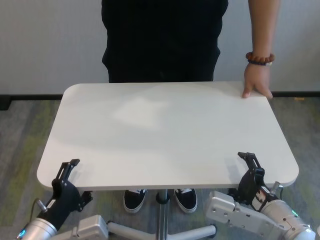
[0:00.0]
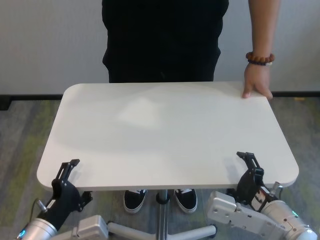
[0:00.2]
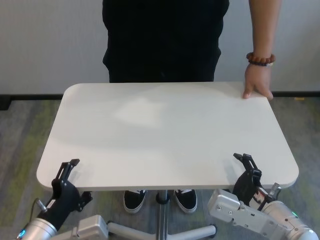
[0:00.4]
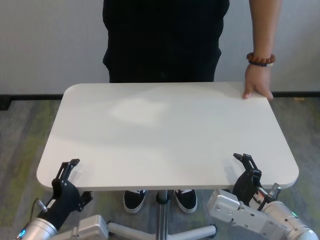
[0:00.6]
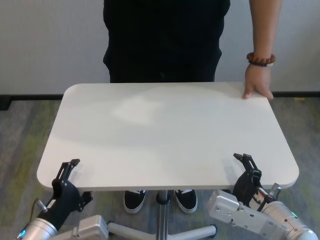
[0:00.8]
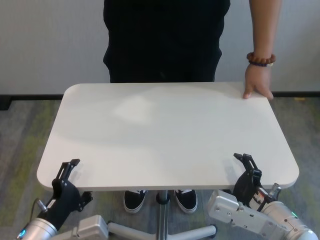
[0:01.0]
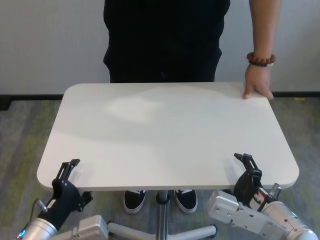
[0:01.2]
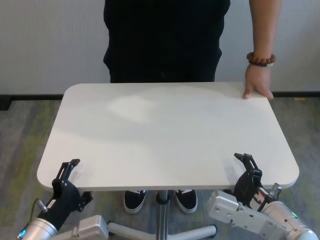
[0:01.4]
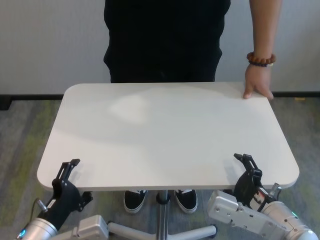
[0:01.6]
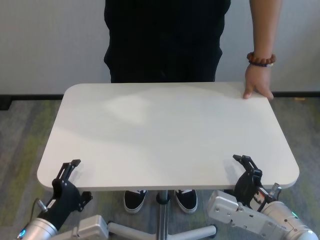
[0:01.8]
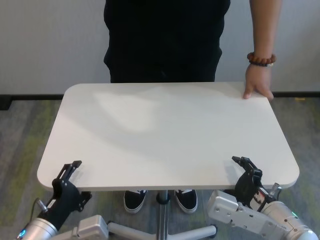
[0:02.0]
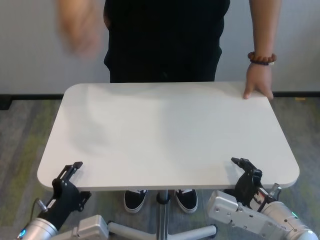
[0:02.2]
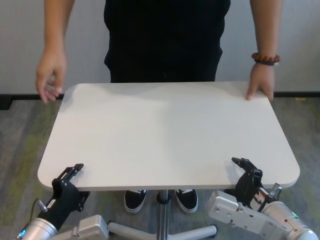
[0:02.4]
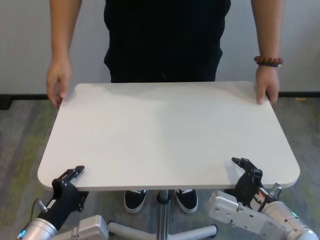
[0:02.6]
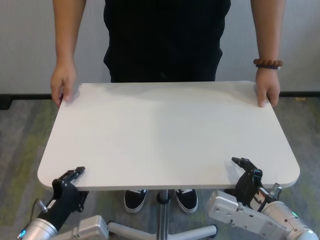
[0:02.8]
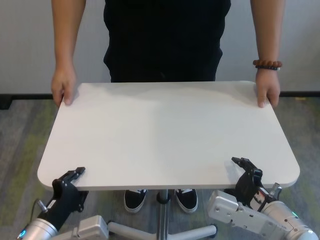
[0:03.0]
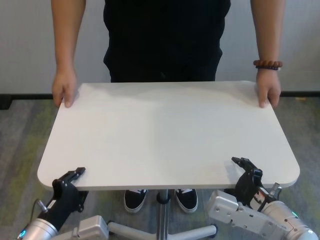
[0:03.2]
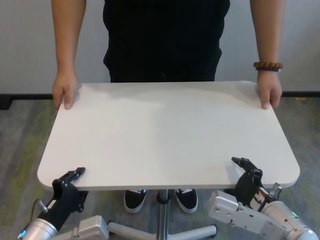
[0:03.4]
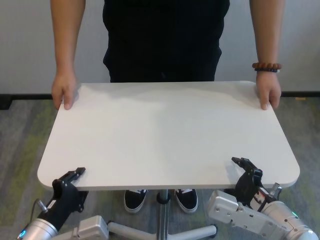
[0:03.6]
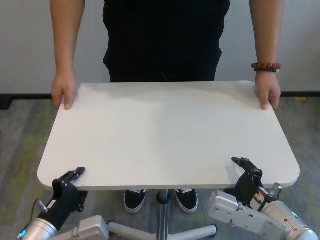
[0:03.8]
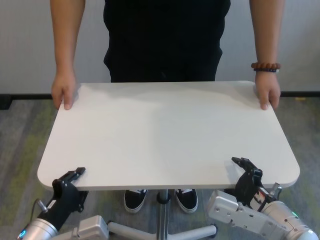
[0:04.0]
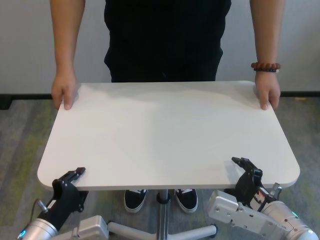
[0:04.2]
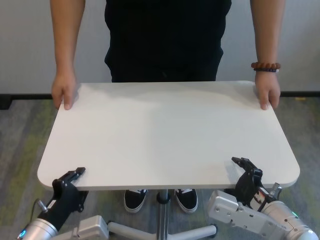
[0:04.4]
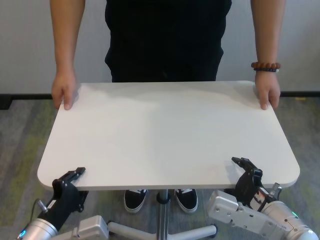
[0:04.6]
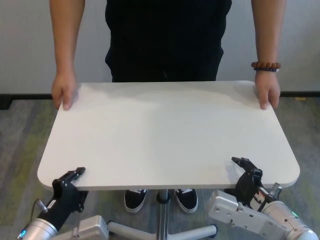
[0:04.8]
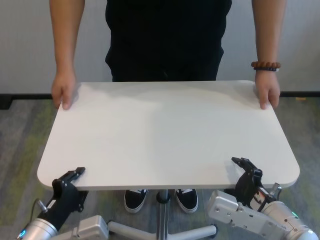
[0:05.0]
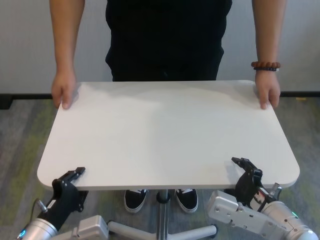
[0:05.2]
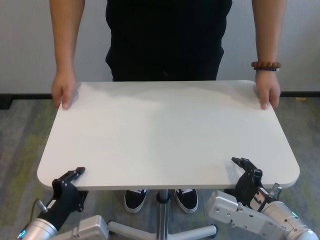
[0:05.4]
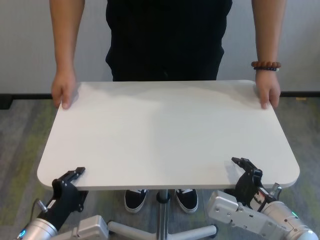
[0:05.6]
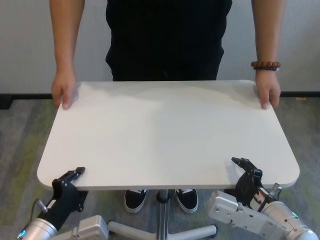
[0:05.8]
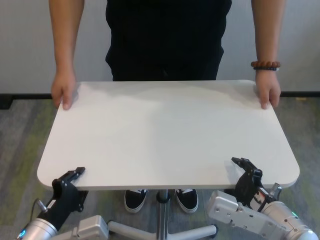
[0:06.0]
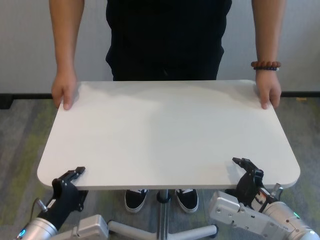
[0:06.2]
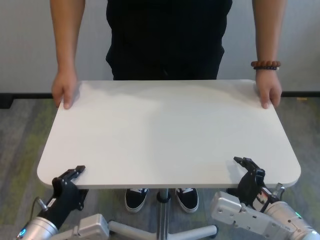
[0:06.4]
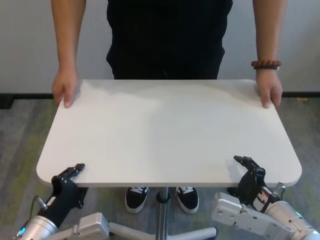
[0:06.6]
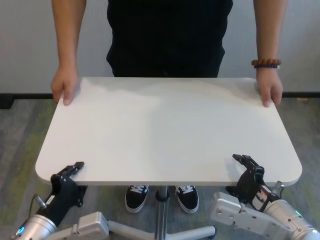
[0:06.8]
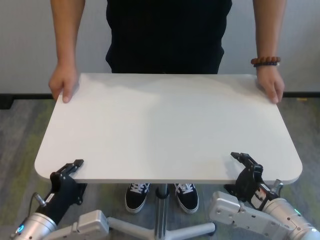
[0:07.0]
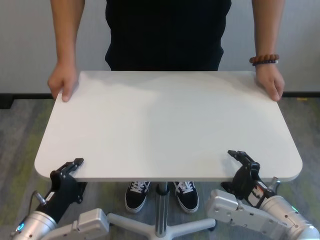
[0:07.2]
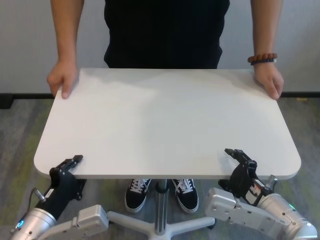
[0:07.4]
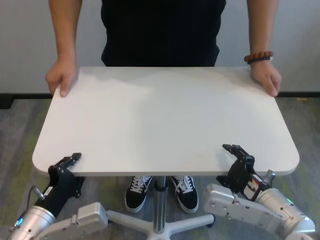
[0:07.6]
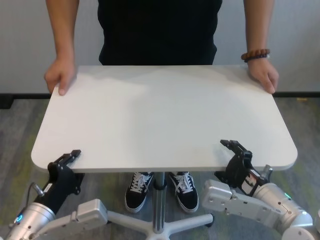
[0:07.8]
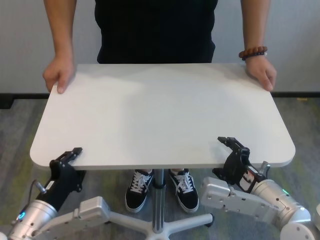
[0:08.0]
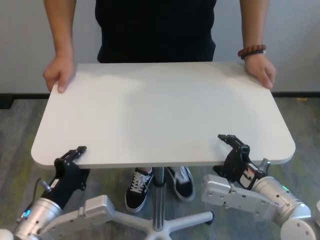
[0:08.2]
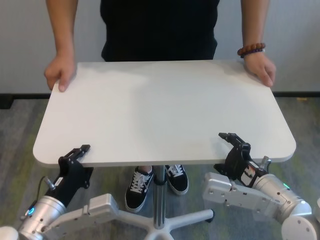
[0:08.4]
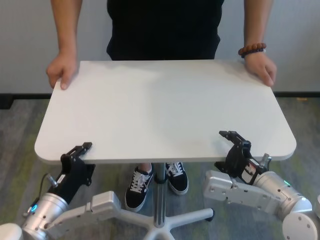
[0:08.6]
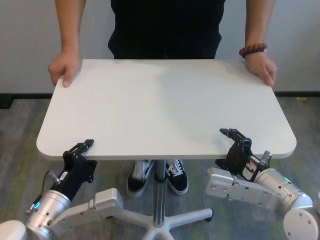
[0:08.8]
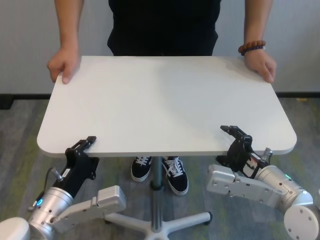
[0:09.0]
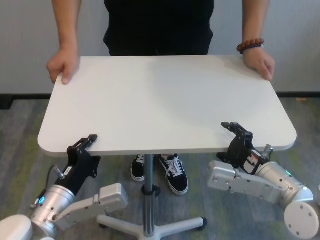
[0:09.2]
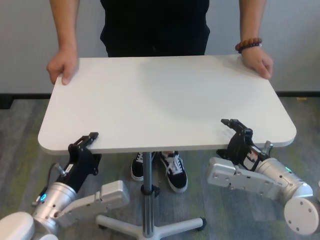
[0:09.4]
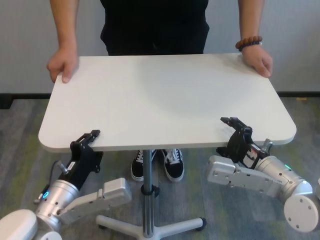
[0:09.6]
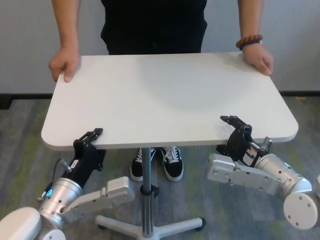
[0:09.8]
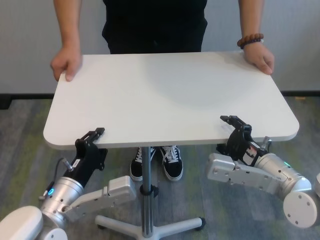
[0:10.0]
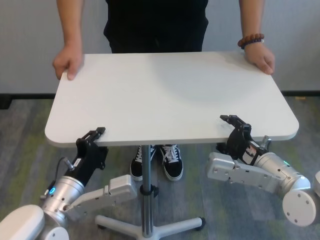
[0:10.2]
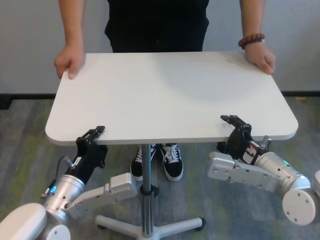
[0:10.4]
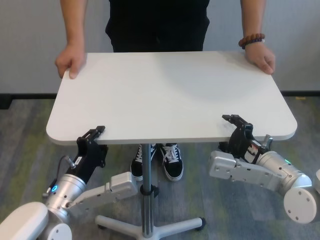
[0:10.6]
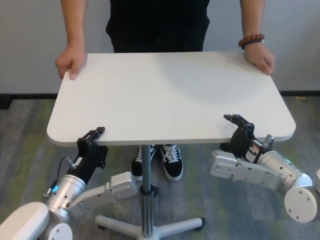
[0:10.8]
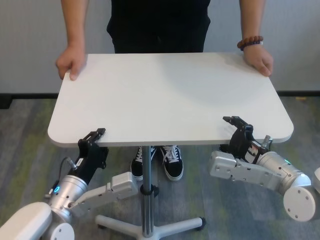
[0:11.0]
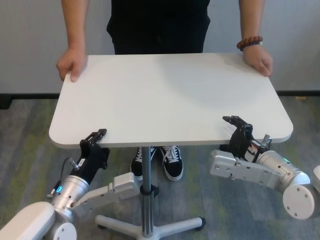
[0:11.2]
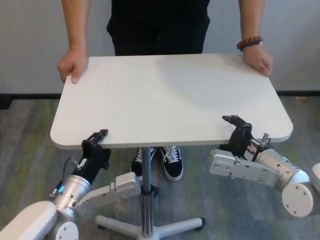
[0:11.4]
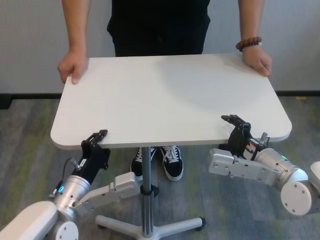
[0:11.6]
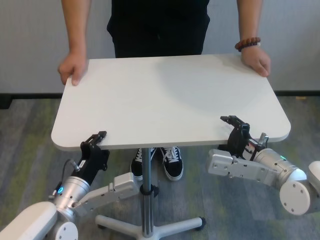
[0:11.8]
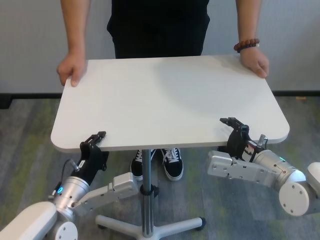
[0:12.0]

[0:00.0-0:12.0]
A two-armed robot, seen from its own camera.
Task of the whole recording: human machine collaborative table moving.
Step, 0:00.0 to 0:02.8: Grasp the table with both grippers.

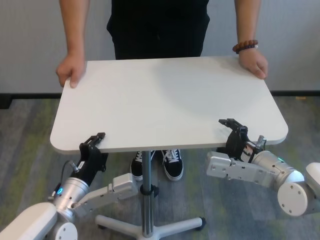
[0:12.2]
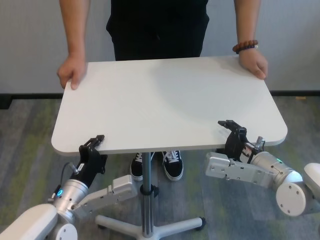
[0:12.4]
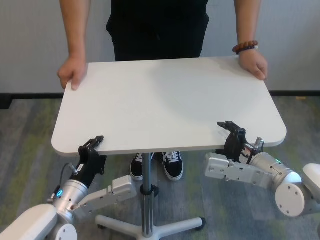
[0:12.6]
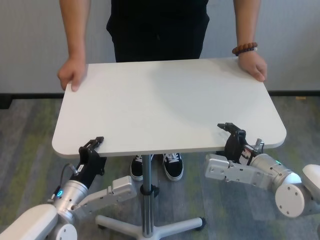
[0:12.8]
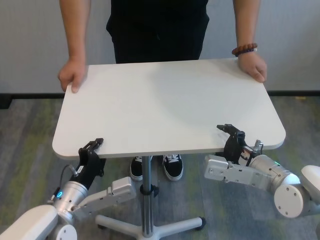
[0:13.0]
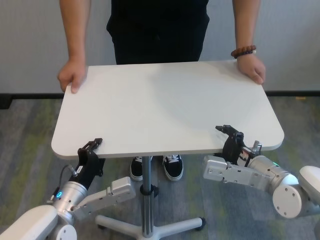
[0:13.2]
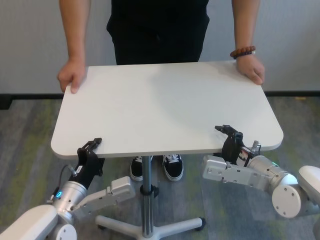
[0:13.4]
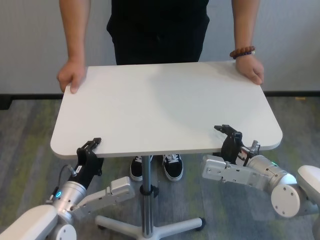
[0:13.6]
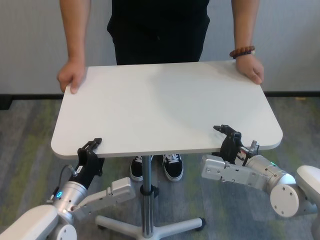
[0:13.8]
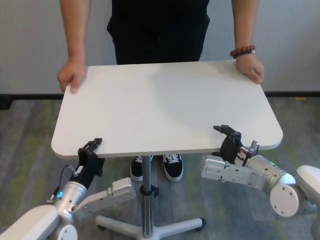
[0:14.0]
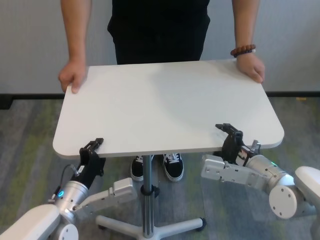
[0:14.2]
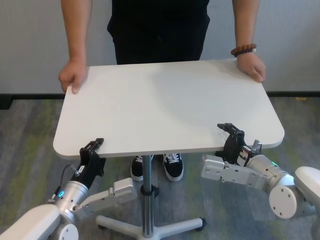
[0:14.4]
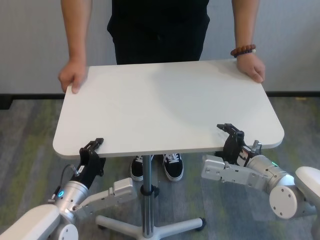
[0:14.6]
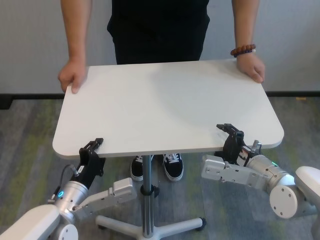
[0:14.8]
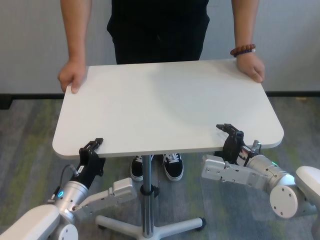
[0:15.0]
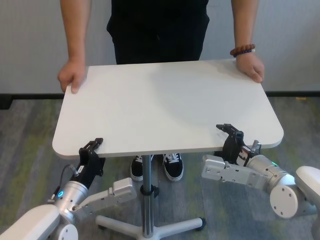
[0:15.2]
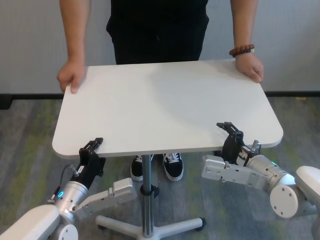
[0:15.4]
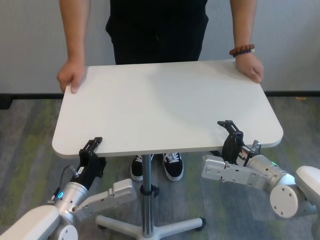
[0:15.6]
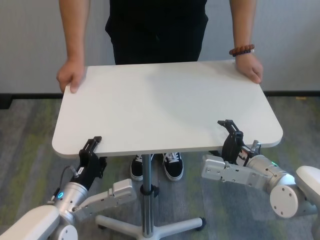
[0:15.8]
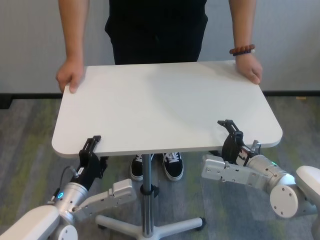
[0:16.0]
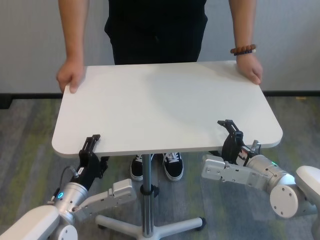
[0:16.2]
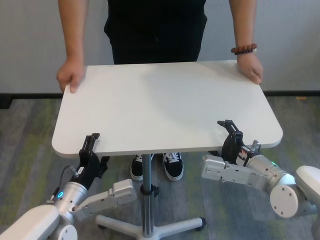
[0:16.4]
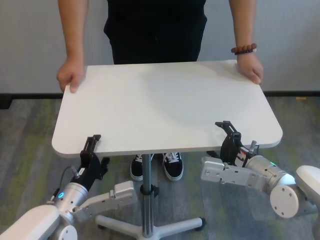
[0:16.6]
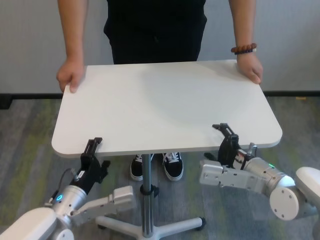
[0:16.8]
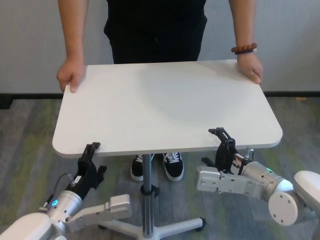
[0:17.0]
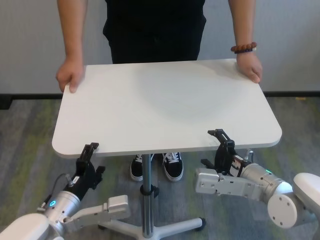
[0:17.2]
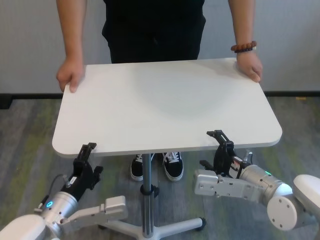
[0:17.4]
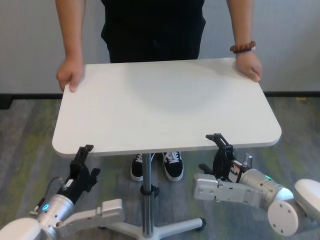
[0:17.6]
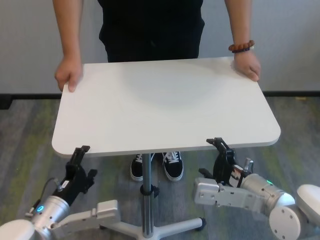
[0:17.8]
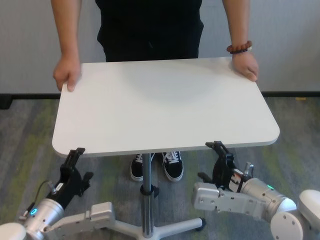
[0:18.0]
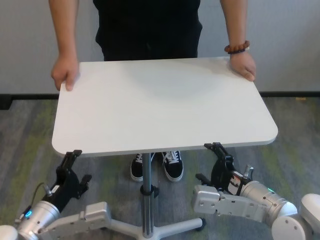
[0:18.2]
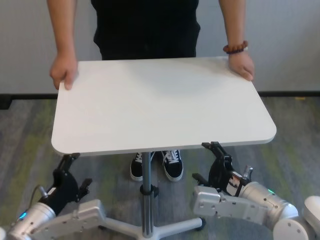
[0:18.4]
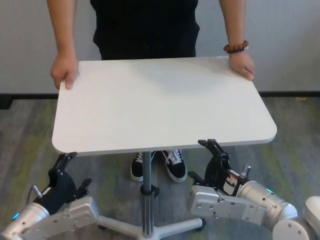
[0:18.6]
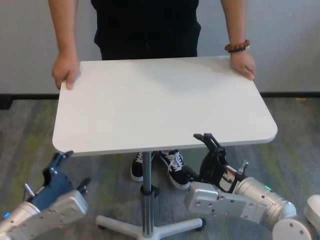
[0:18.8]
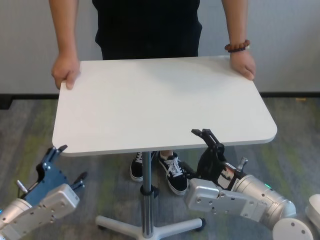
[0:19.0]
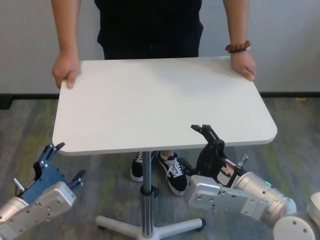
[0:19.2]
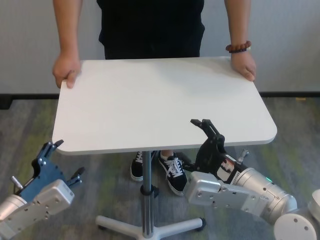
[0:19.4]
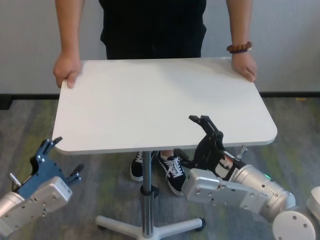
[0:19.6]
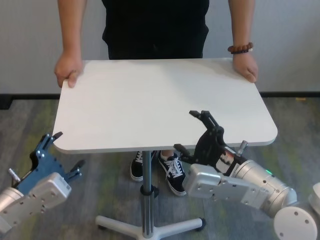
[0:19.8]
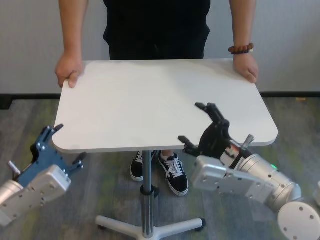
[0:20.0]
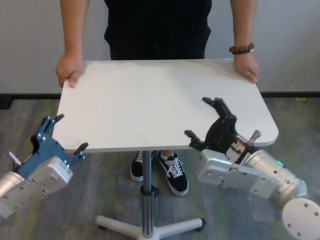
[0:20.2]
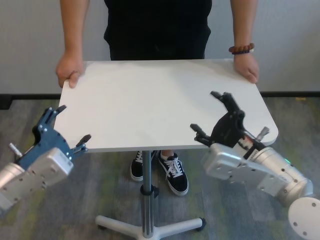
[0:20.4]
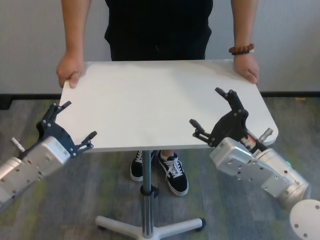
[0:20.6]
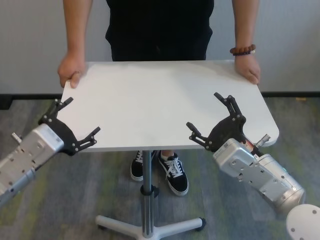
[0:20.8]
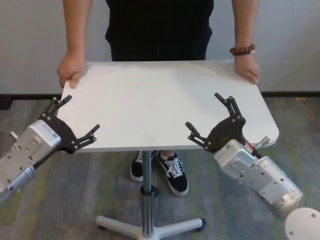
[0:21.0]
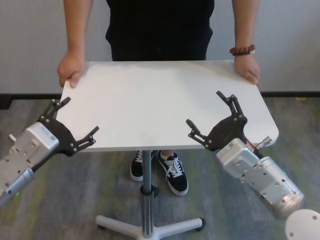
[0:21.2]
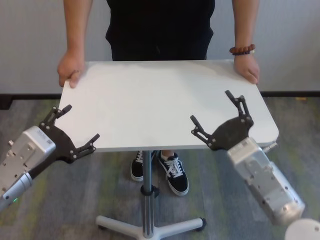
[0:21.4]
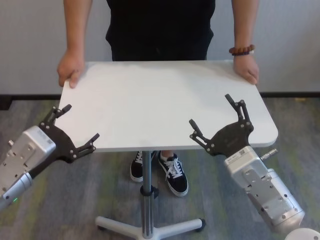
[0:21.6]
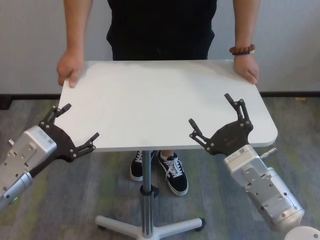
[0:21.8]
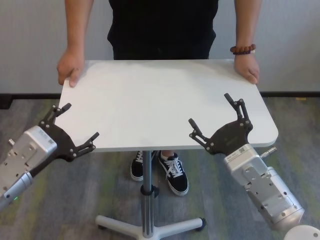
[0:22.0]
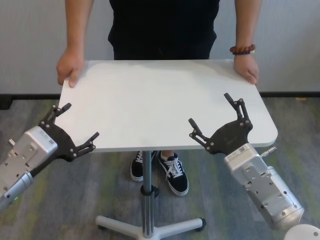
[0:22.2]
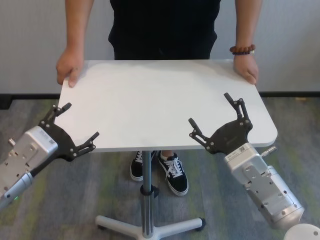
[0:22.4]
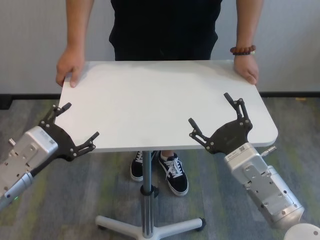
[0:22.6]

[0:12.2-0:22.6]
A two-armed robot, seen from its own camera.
Task of the whole recording: human machine collaborative table moving.
Step, 0:12.2 to 0:16.6: Move the table forward with both grippers.
